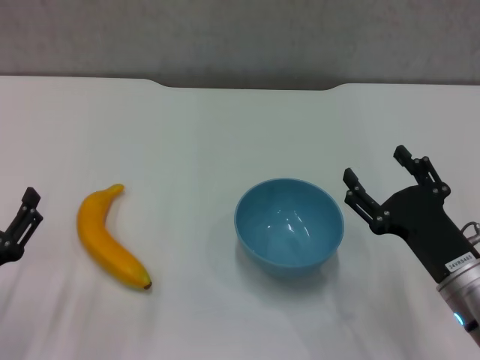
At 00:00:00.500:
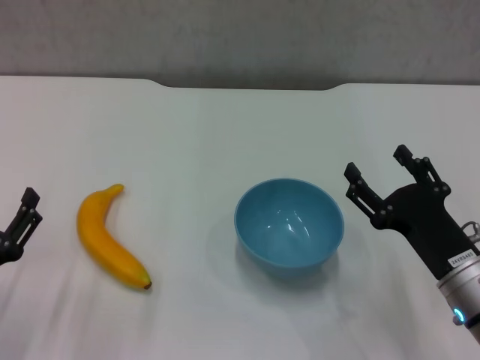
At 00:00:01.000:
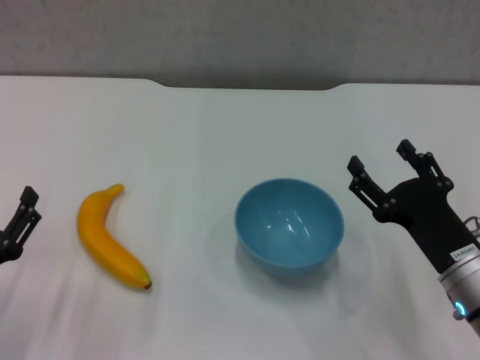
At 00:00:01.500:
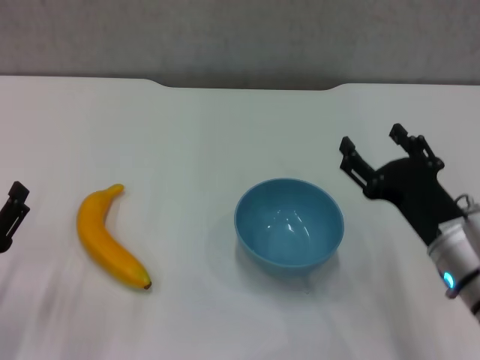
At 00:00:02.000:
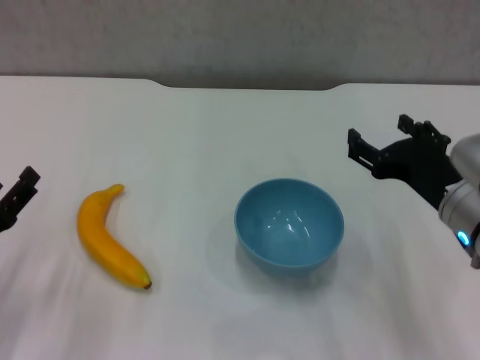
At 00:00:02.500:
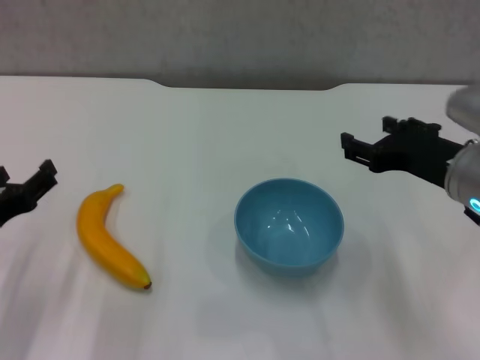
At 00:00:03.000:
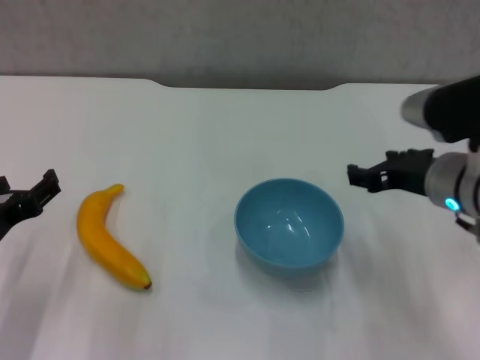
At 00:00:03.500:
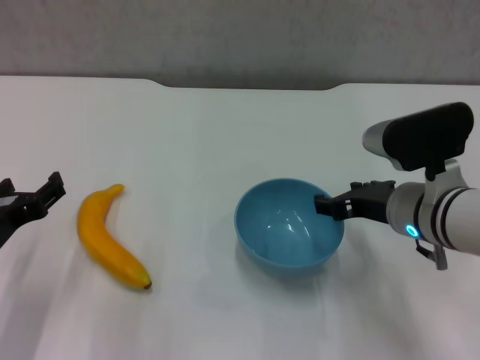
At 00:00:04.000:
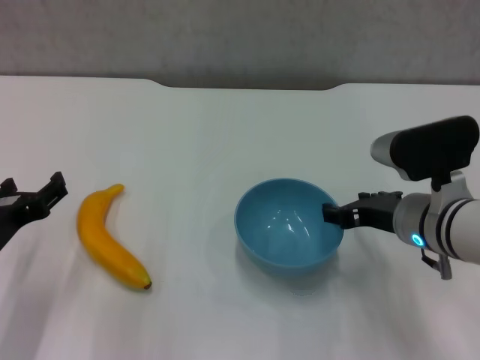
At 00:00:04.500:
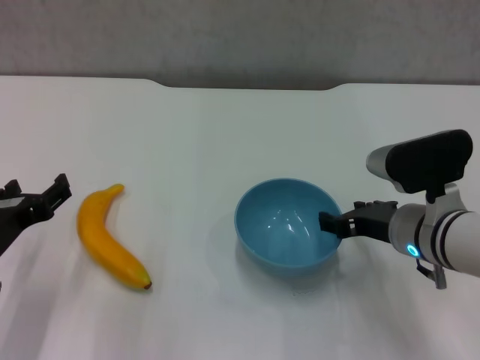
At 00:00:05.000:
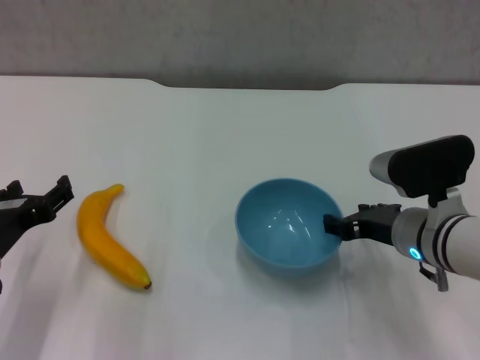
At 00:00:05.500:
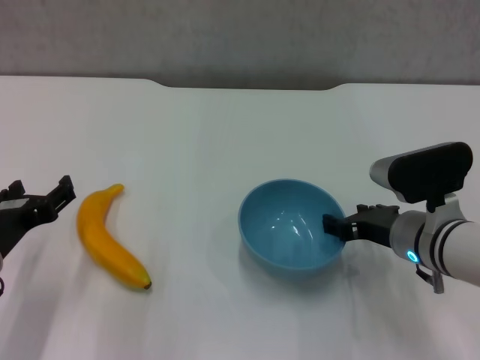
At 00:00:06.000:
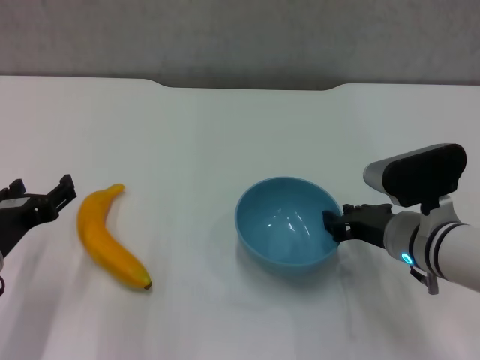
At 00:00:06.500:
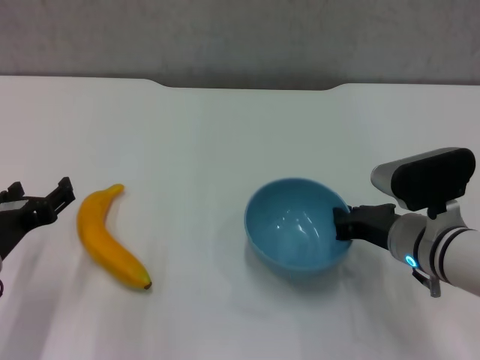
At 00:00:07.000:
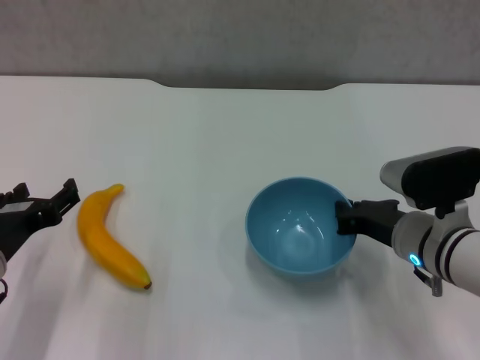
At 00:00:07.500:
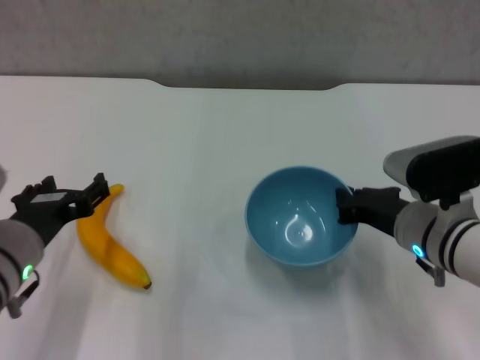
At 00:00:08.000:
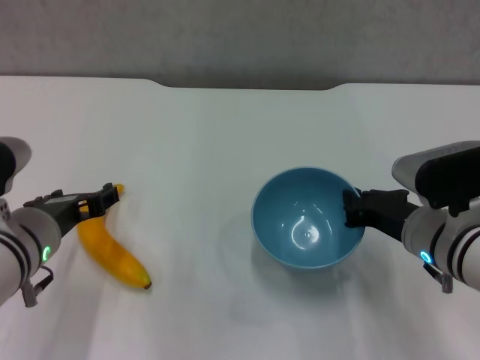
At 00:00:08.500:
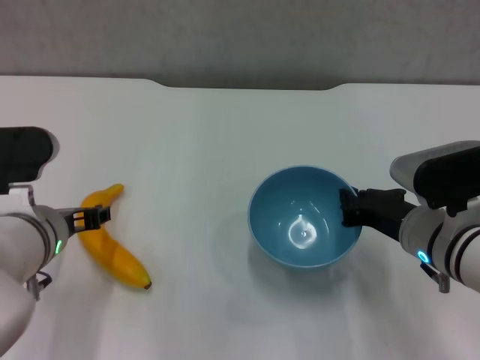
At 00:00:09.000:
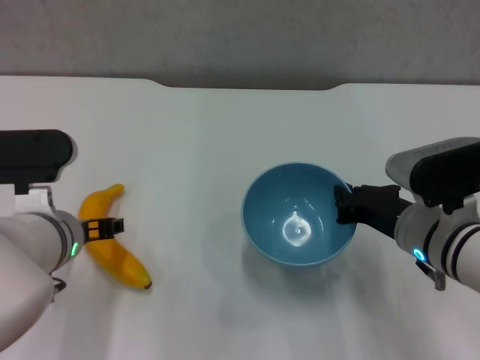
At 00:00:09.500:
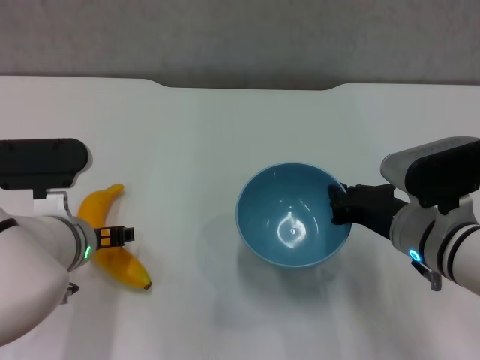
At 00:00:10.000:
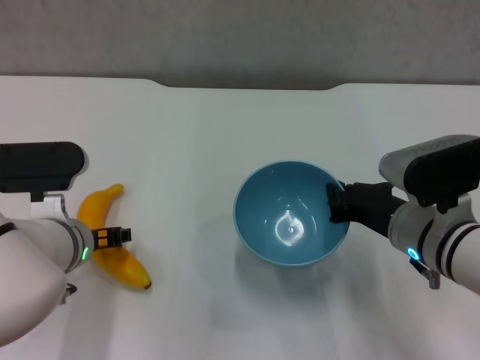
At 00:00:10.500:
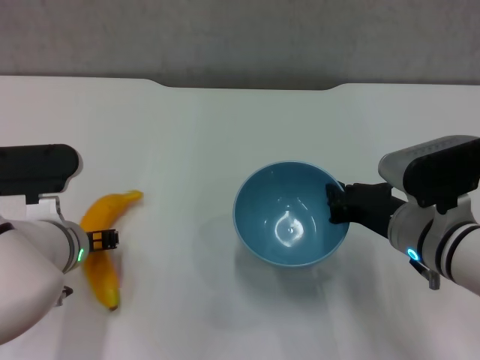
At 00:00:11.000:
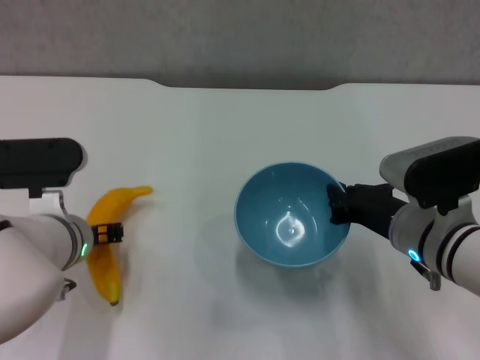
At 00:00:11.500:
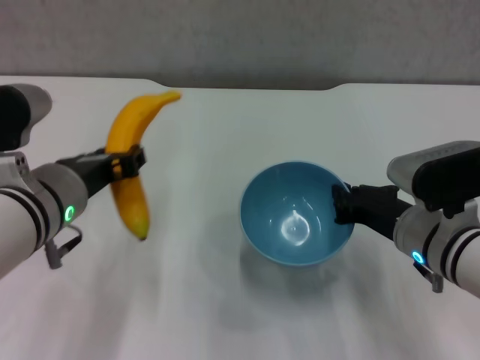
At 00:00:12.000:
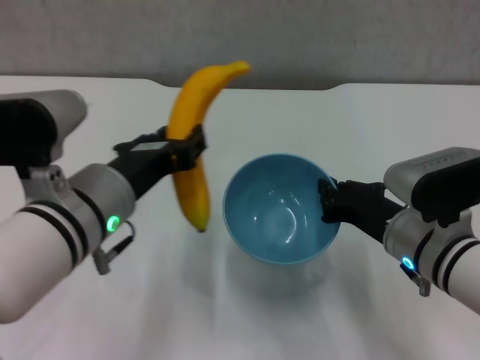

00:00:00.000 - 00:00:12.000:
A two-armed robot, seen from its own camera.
Step, 00:00:00.000 - 00:00:06.000: Grasp the blue bowl with right gripper.
Step, 00:00:06.500 - 00:00:07.500: Lift the blue bowl with right gripper.
Step, 00:00:08.000 - 00:00:10.500: Grasp the banana with left gripper.
00:00:00.000 - 00:00:02.000: The right gripper is displaced upward by approximately 5 cm.
00:00:02.000 - 00:00:04.000: The left gripper ends up some 5 cm from where it was, while the right gripper changes place by roughly 5 cm.
00:00:04.000 - 00:00:06.000: The grippers move only a little.
00:00:06.000 - 00:00:08.000: The right gripper closes. The left gripper shifts about 5 cm to the right.
00:00:08.000 - 00:00:10.000: The left gripper moves some 5 cm.
00:00:10.000 - 00:00:12.000: The left gripper heads upward, covering some 10 cm, and closes.

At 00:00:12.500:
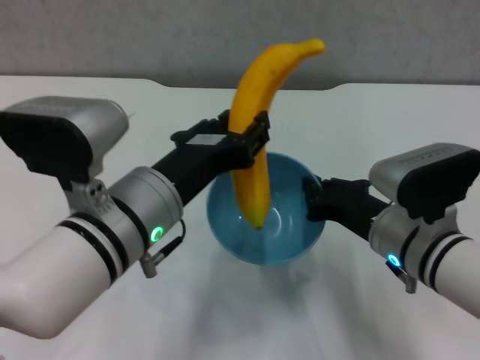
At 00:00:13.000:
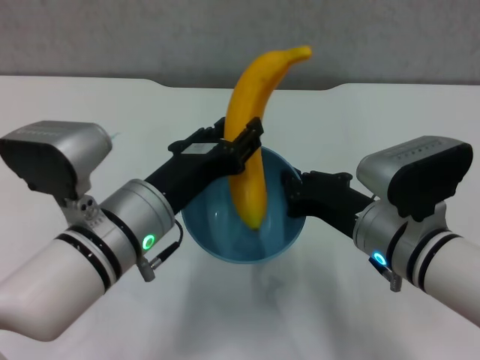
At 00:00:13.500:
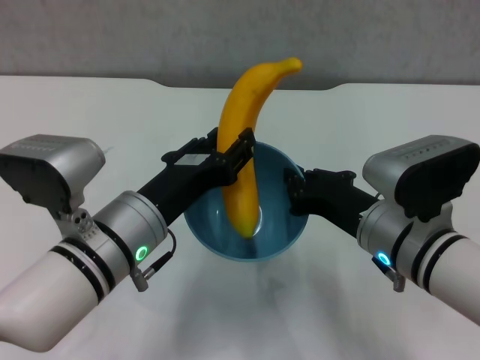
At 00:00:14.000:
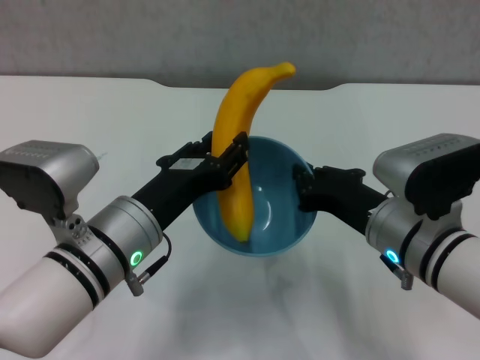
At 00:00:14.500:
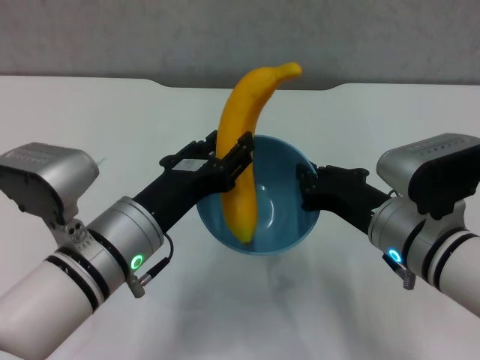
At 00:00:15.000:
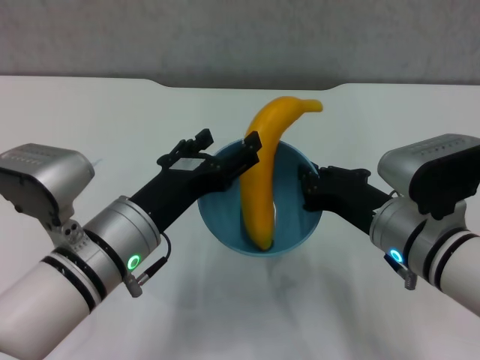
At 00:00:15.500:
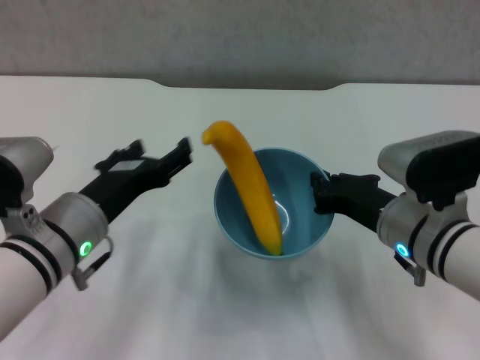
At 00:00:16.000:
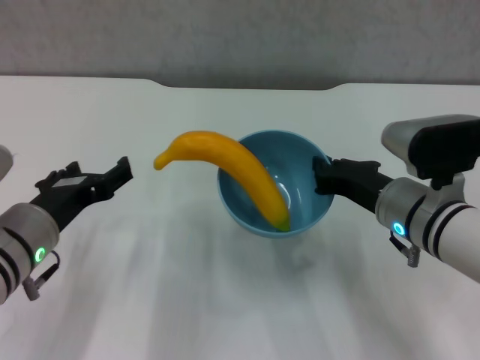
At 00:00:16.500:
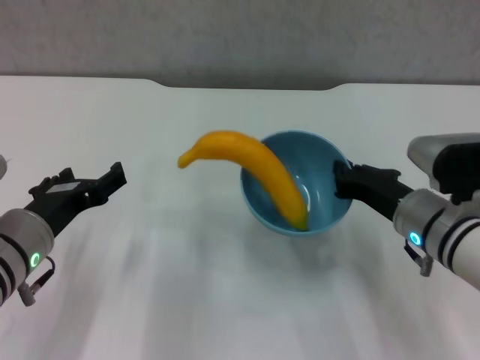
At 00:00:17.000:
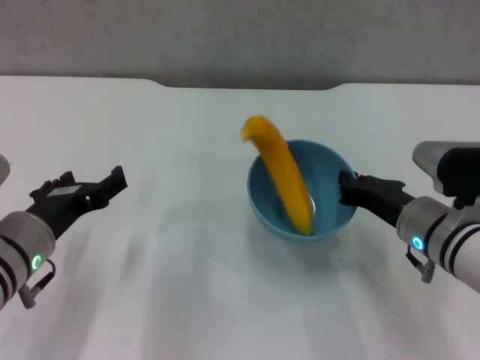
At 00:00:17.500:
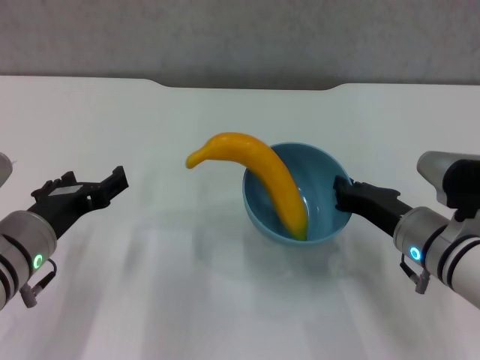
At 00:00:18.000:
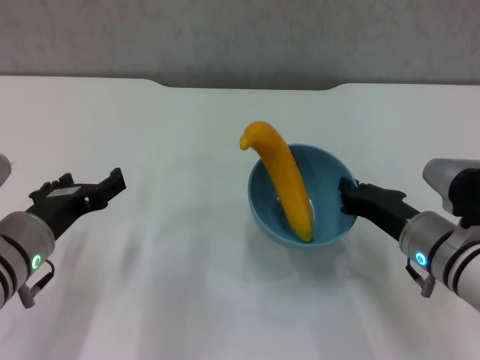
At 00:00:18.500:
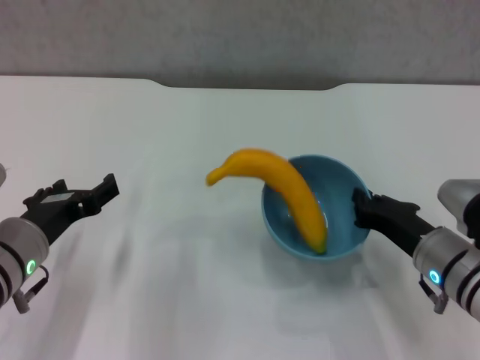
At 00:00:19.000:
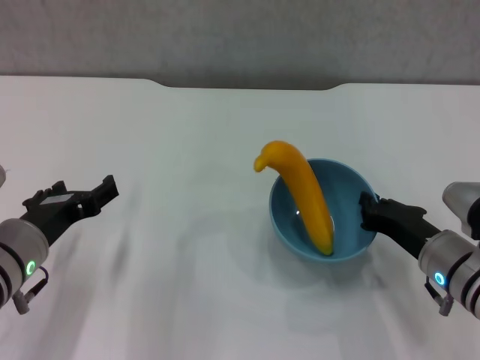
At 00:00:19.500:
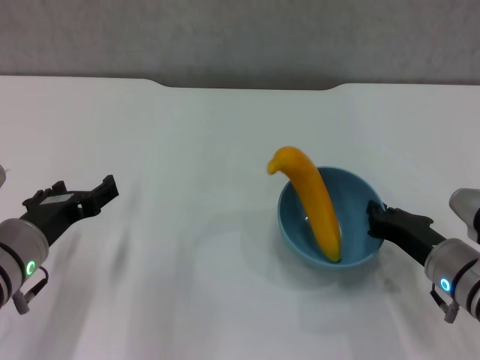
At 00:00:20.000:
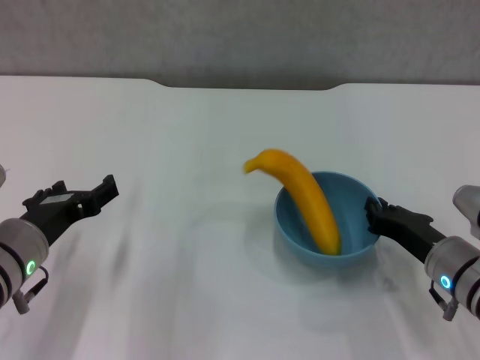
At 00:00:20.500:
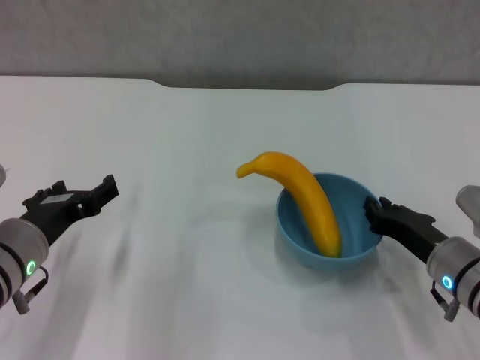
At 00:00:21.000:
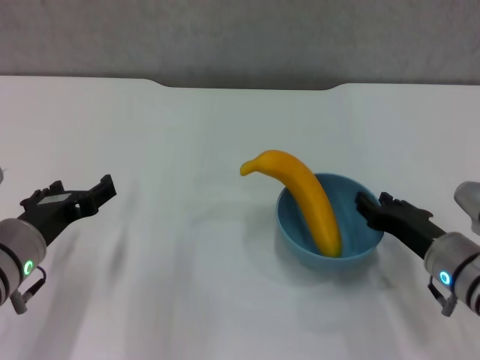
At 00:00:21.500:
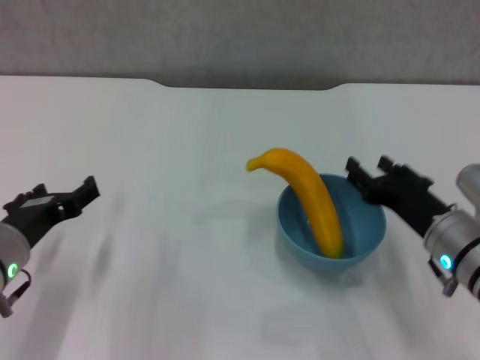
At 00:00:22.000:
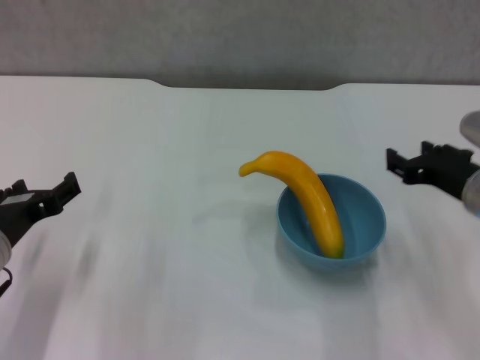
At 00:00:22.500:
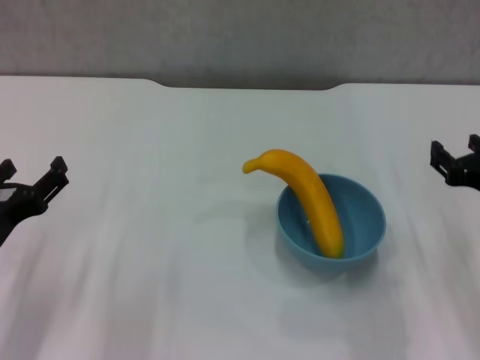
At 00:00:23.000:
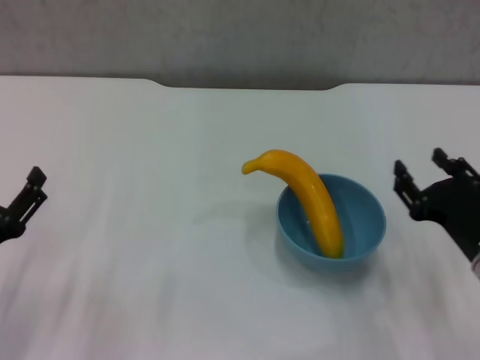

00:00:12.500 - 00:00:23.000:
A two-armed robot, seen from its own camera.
Step, 00:00:12.500 - 00:00:15.000: Place the banana in the blue bowl with left gripper.
Step, 00:00:15.500 - 00:00:21.000: Place the bowl on the table with right gripper.
00:00:12.500 - 00:00:14.500: The left gripper moves roughly 5 cm.
00:00:14.500 - 00:00:16.500: The left gripper shifts roughly 10 cm to the left, and opens, while the right gripper changes place by about 5 cm.
00:00:16.500 - 00:00:19.000: The right gripper ends up approximately 5 cm from where it was.
00:00:19.000 - 00:00:21.000: Neither gripper changes place.
00:00:21.000 - 00:00:23.000: The left gripper heads backward and to the left, covering about 10 cm.
